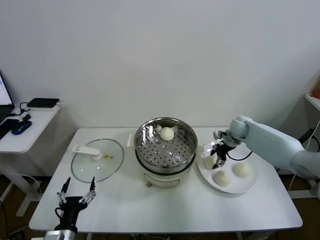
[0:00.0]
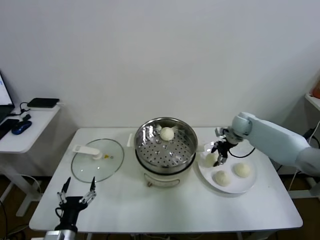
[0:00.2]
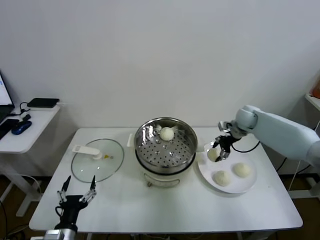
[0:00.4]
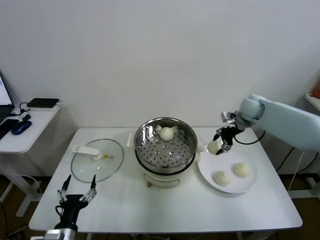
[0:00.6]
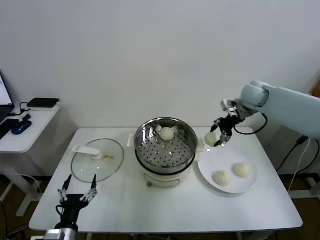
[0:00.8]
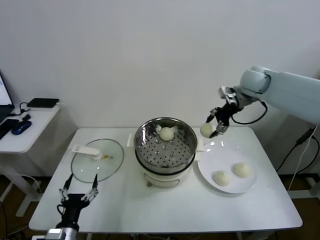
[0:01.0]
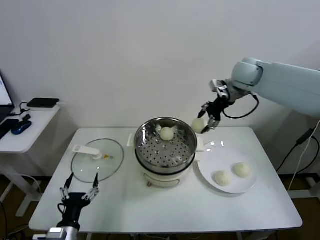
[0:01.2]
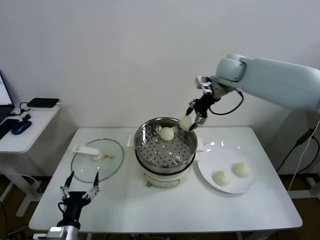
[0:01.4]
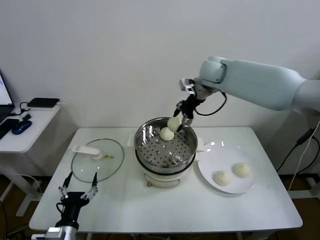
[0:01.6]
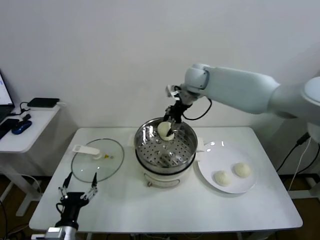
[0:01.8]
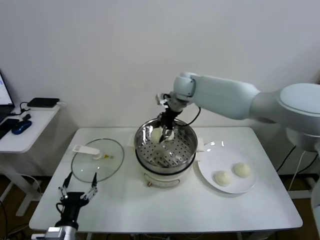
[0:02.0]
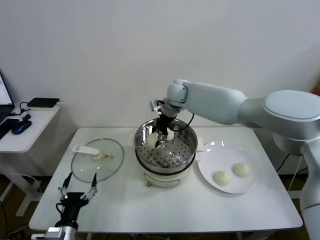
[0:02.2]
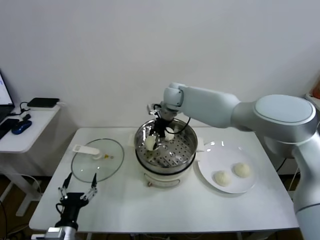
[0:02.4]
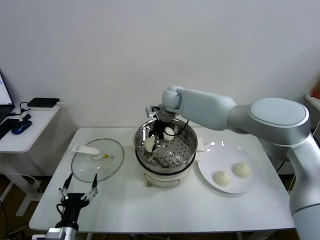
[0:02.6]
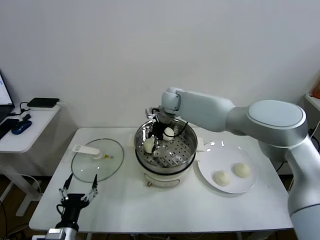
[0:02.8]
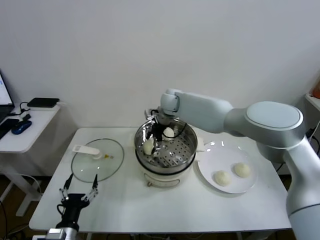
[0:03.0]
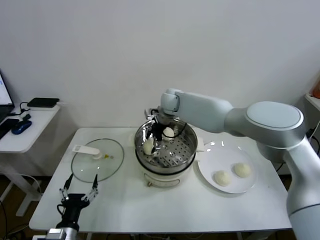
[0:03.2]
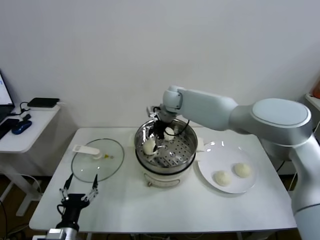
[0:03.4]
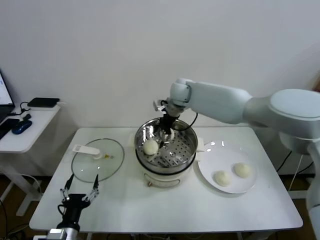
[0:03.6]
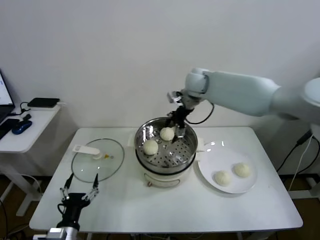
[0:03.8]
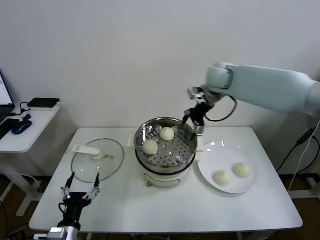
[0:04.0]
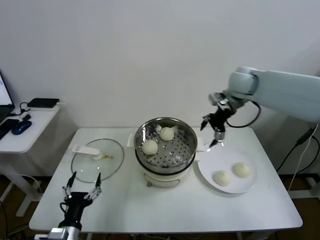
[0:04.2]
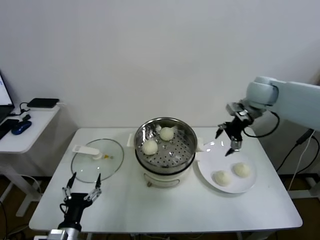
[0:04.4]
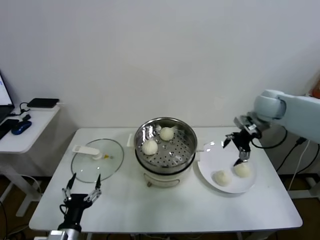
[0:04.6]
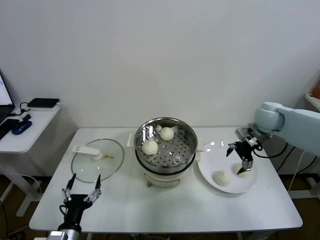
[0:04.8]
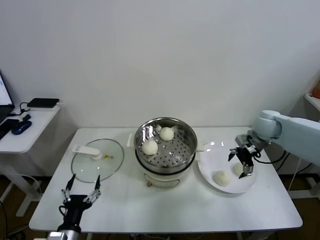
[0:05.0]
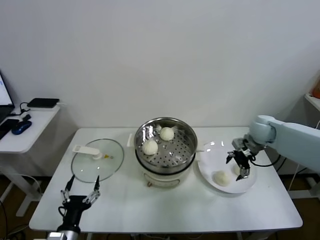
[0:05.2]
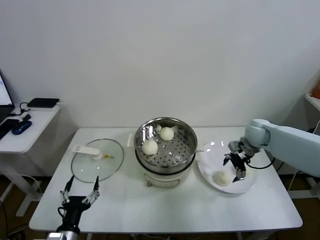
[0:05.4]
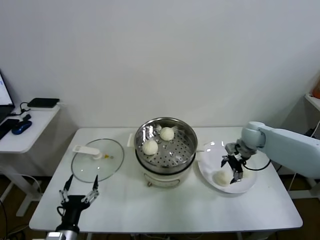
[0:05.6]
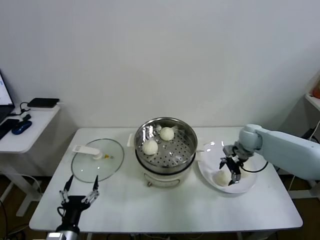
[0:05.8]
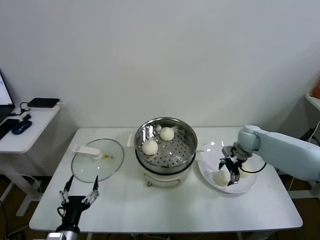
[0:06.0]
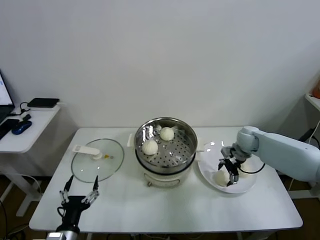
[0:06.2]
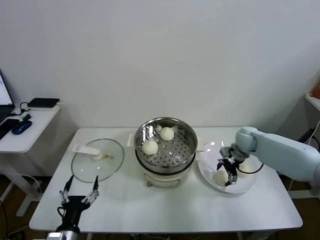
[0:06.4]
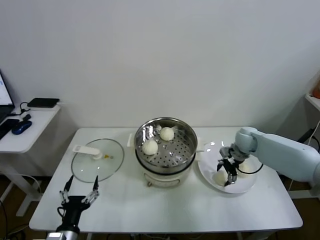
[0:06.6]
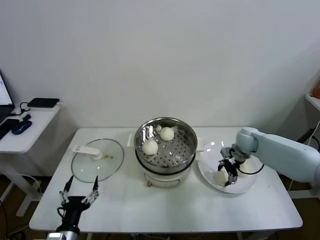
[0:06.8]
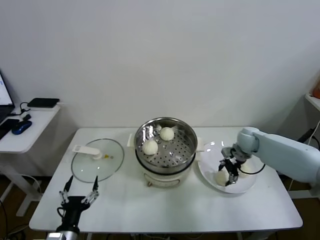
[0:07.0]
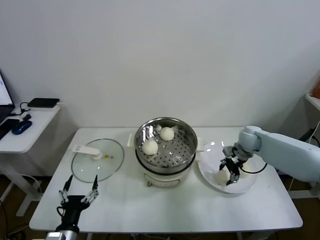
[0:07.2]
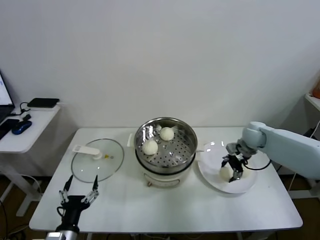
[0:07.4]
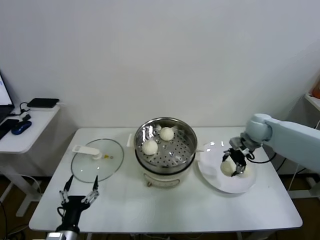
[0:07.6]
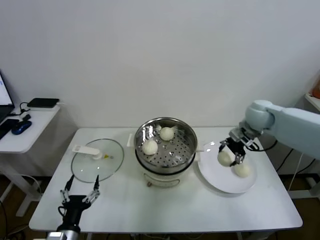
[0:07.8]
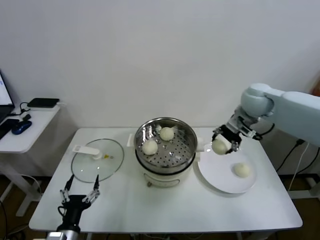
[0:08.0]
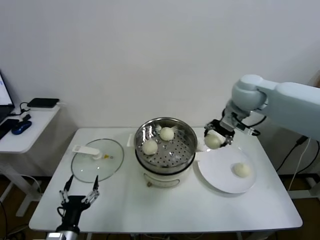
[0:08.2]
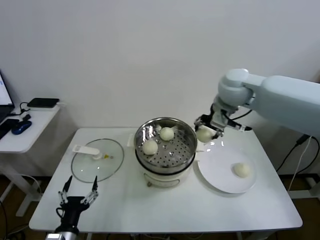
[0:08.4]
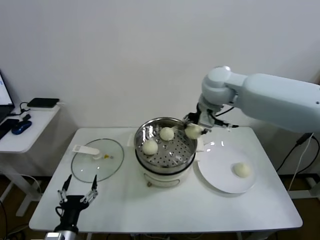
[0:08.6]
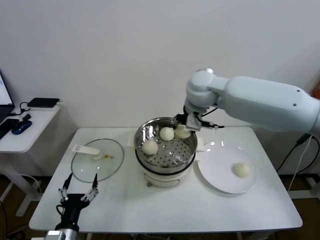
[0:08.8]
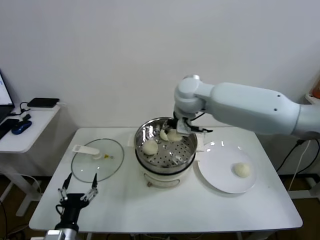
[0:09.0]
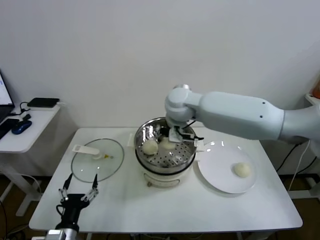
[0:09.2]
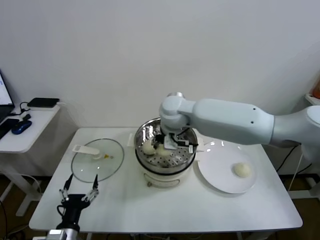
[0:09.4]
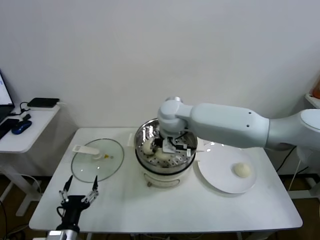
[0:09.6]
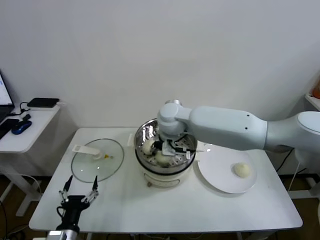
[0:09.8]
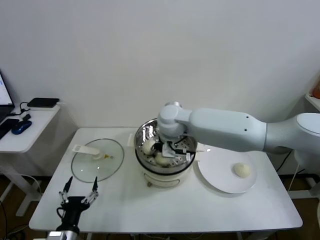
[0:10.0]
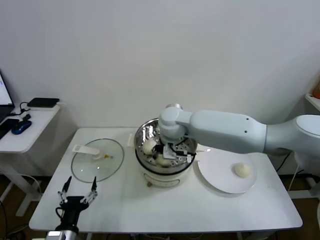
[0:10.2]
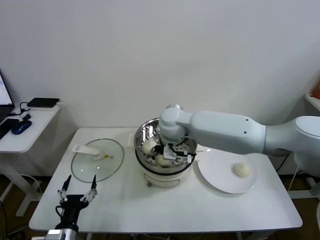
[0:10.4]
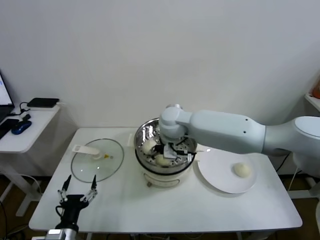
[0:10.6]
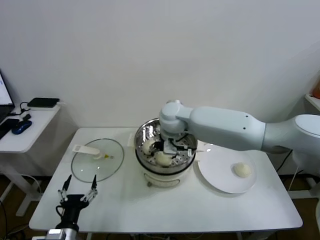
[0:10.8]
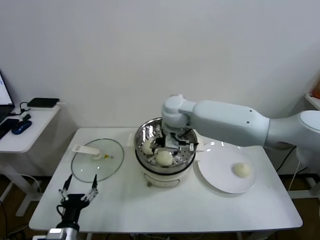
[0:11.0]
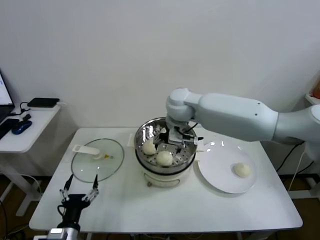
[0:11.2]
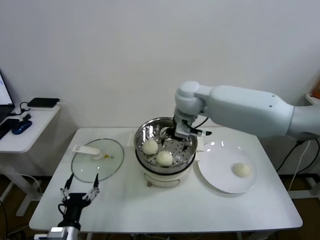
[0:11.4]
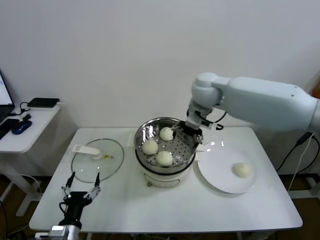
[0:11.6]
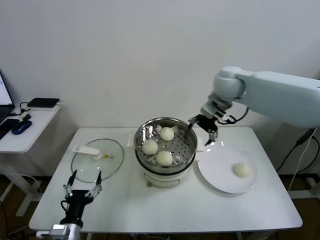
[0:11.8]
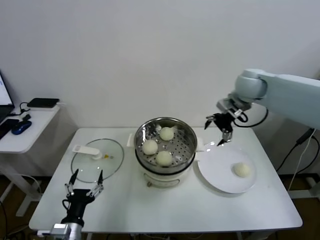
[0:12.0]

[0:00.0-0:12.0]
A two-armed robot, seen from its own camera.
Task of the whole recording: take steamed baozi put them in steamer.
Step, 0:00.0 to 0:03.0: Place the baozi on the steamer with right gripper.
Step, 0:03.4 to 0:07.0: Grasp the baozi in the plate with right gripper.
Step, 0:07.2 to 0:10.6: Place the baozi on the steamer with right gripper.
0:00.0 to 0:01.6: The right gripper shifts about 30 cm upward and to the left.
0:01.6 to 0:03.0: The right gripper heads downward and to the left, covering roughly 15 cm, and opens its fingers.
0:03.0 to 0:04.4: The right gripper moves to the right, approximately 30 cm.
0:04.4 to 0:06.0: The right gripper travels downward by about 20 cm.
0:06.0 to 0:07.6: The right gripper heads upward, covering some 5 cm, and closes its fingers.
0:07.6 to 0:09.0: The right gripper heads to the left and upward, covering approximately 30 cm.
0:09.0 to 0:10.4: The right gripper is displaced downward by some 10 cm, and opens up.
0:10.4 to 0:12.0: The right gripper heads to the right and upward, covering approximately 25 cm.

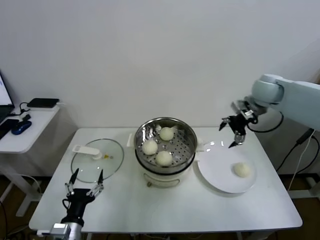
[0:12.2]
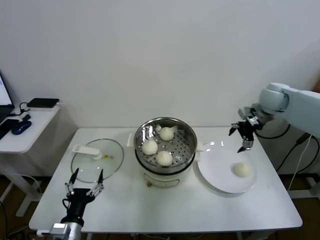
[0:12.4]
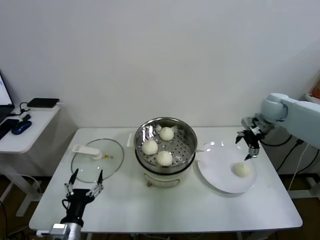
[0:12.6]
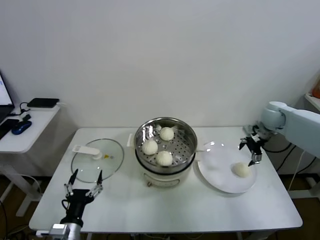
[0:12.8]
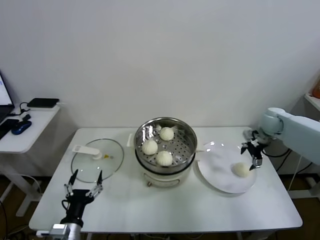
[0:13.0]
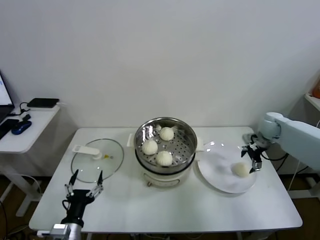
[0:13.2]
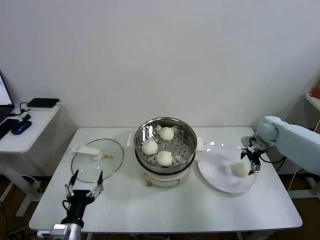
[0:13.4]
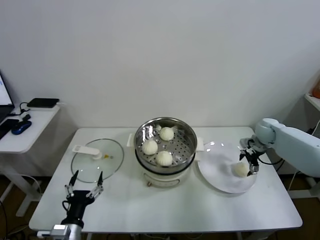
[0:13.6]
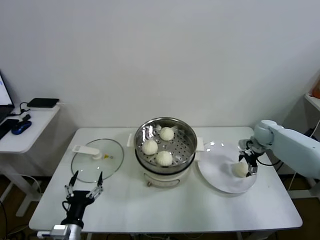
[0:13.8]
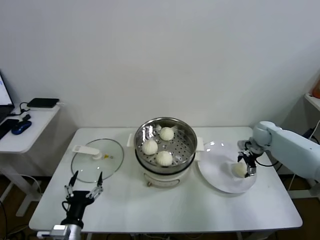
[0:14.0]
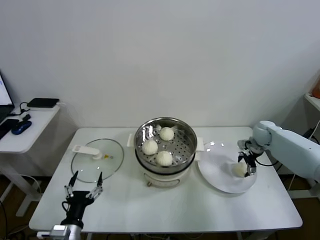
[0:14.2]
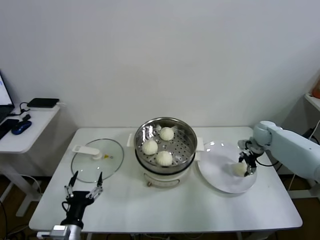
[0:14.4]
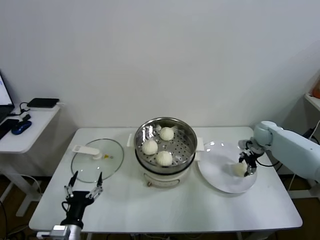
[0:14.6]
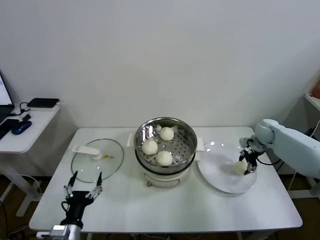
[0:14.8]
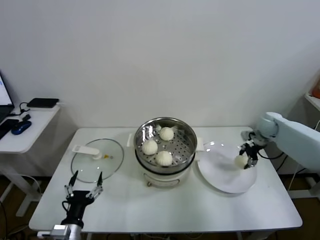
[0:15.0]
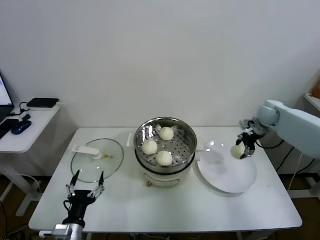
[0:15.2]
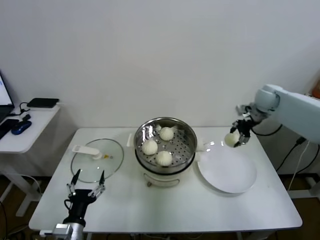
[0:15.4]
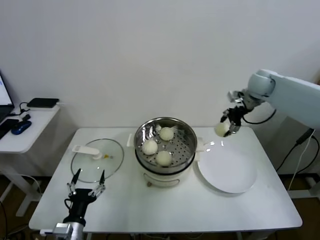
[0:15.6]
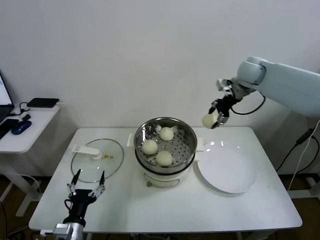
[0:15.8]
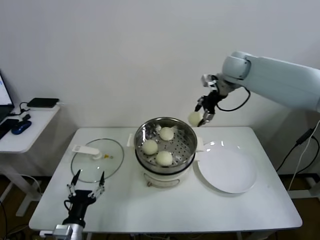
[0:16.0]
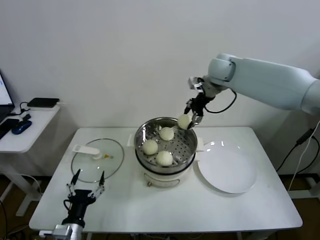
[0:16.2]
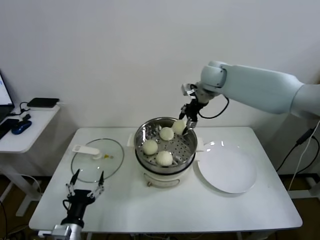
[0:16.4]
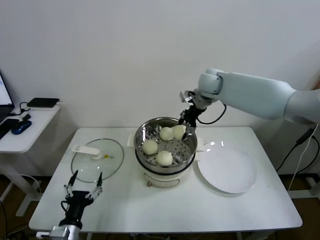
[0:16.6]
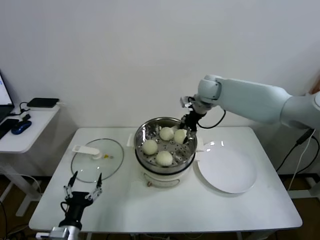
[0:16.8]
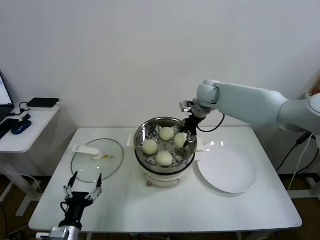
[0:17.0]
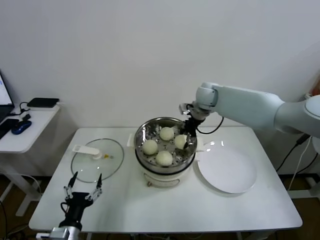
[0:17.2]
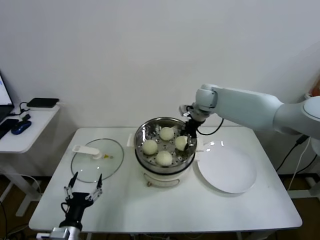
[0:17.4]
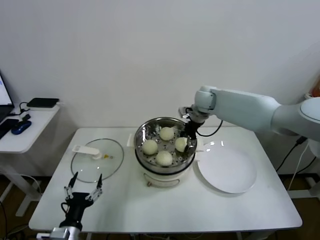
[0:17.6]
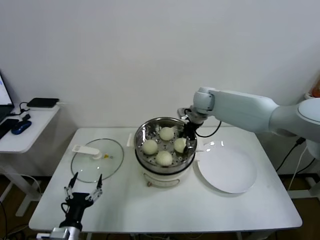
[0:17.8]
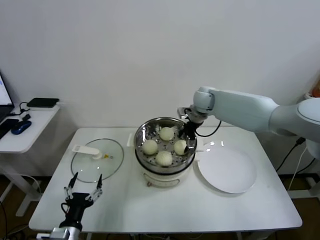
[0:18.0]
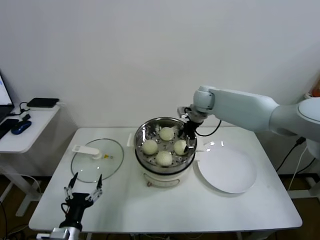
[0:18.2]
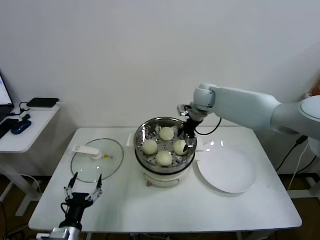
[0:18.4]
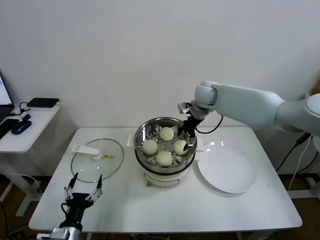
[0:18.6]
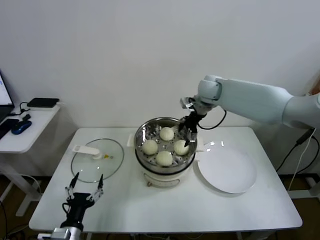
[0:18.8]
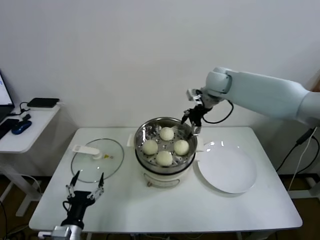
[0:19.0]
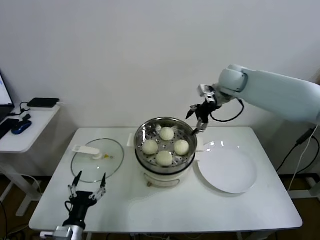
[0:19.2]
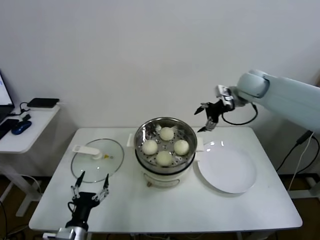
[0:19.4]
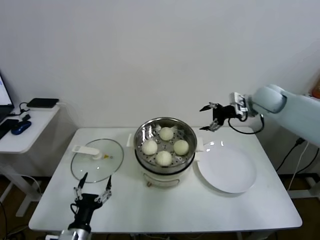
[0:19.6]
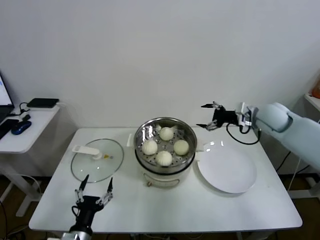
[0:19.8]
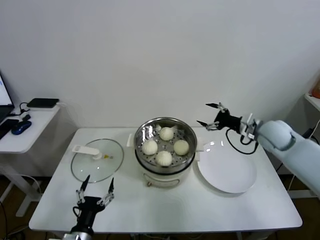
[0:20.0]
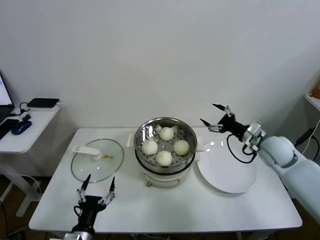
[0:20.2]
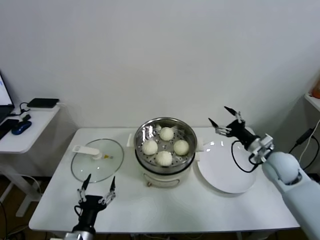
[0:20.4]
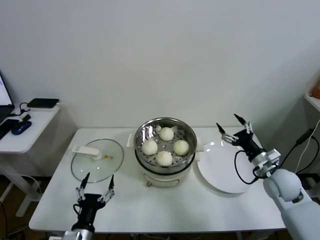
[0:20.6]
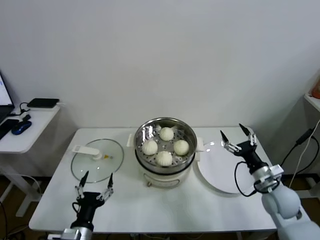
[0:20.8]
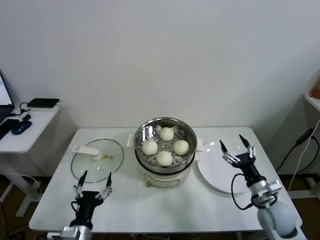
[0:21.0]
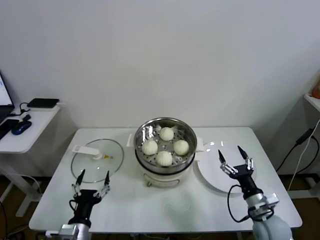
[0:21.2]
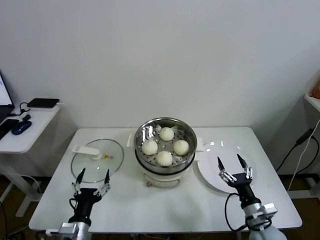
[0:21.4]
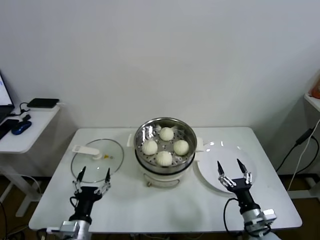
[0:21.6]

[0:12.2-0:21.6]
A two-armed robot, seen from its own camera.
Task of the whole recording: take steamed baozi put them in steamer.
Step, 0:12.2 to 0:14.6: Grasp the baozi in the plate with right gripper.
Step, 0:14.8 to 0:18.2: Place the baozi on the steamer with right gripper.
0:12.2 to 0:13.8: The right gripper heads downward and to the right, covering approximately 25 cm.
0:13.8 to 0:15.4: The right gripper goes some 15 cm upward, and closes up.
0:15.4 to 0:17.0: The right gripper moves to the left, approximately 20 cm.
0:17.0 to 0:18.4: The right gripper opens.
0:18.4 to 0:20.0: The right gripper goes approximately 25 cm to the right and backward.
0:20.0 to 0:21.6: The right gripper is displaced backward and downward by about 35 cm.
